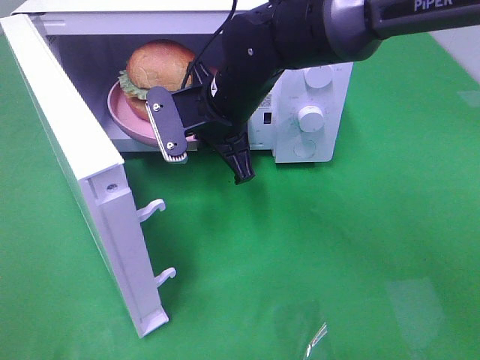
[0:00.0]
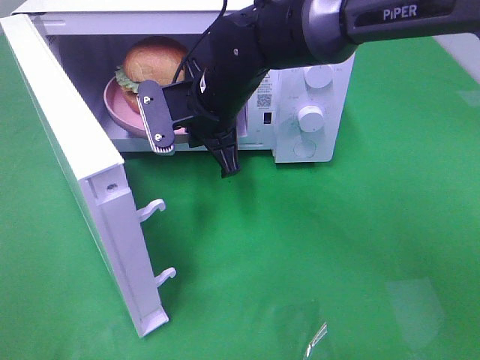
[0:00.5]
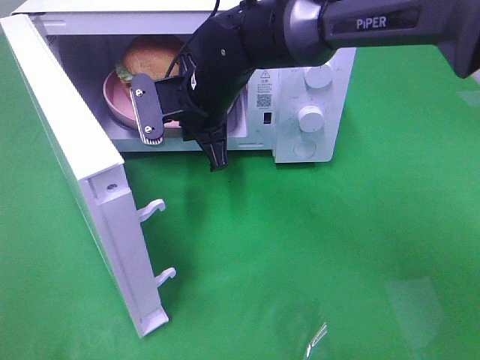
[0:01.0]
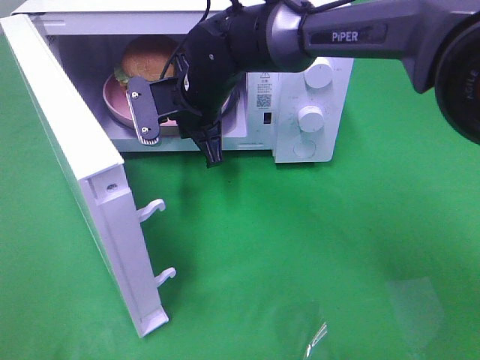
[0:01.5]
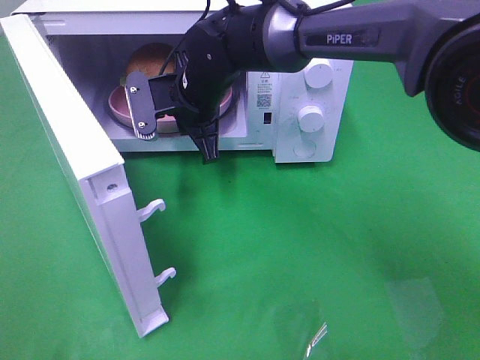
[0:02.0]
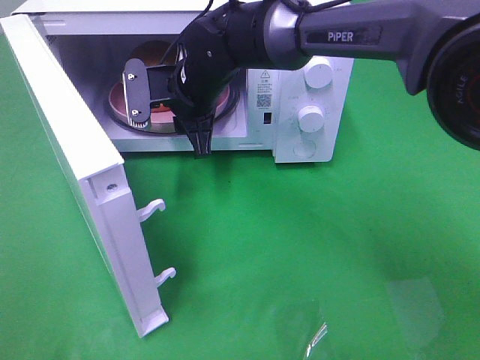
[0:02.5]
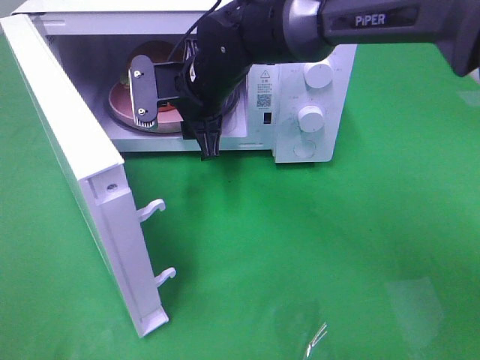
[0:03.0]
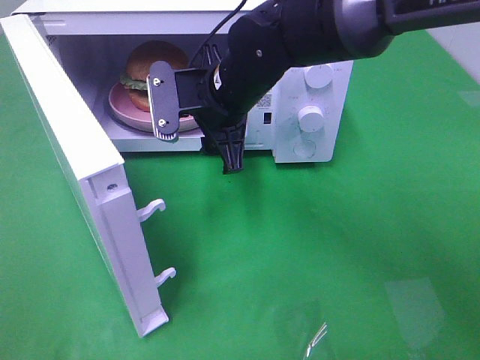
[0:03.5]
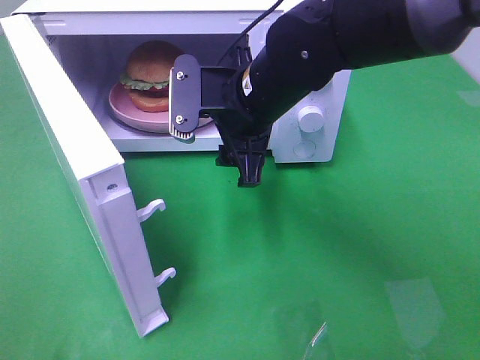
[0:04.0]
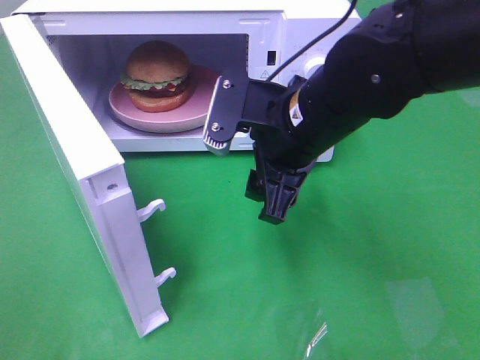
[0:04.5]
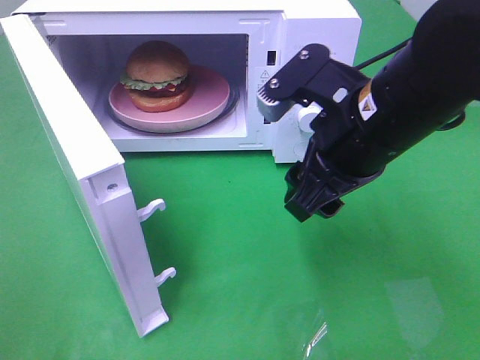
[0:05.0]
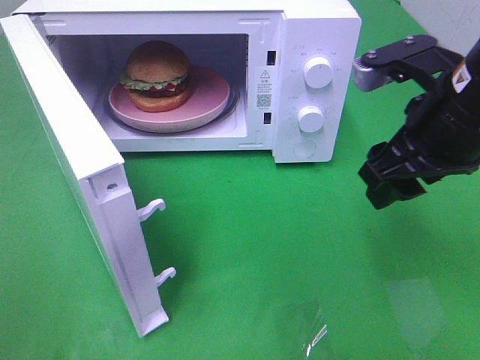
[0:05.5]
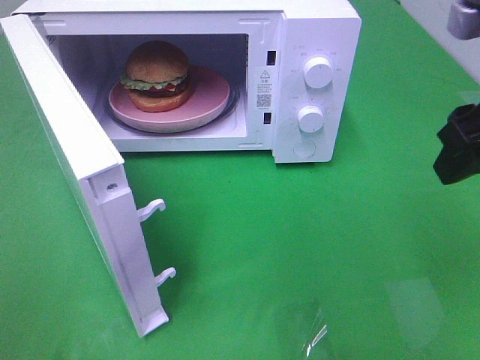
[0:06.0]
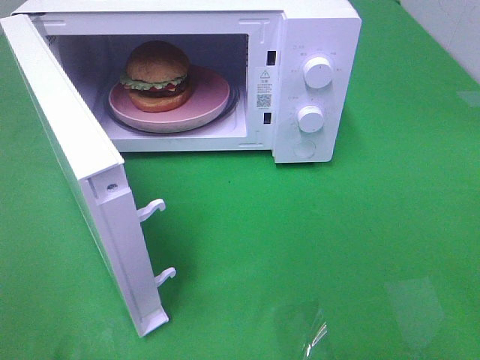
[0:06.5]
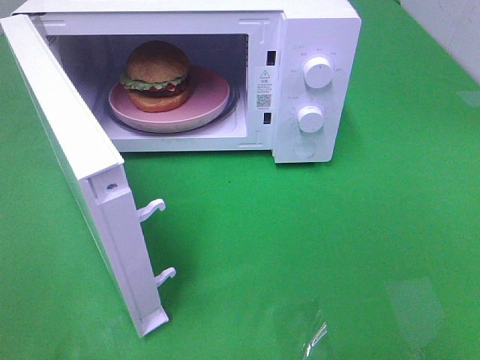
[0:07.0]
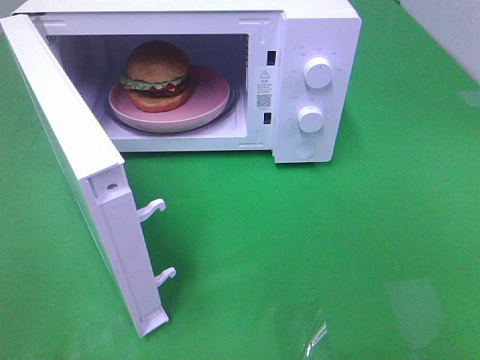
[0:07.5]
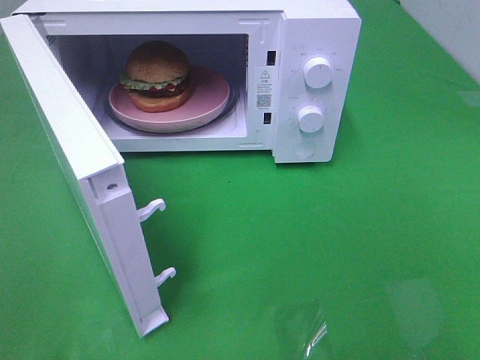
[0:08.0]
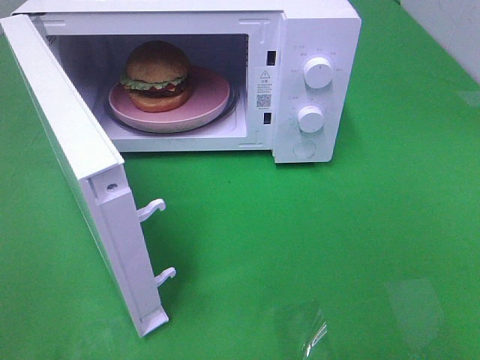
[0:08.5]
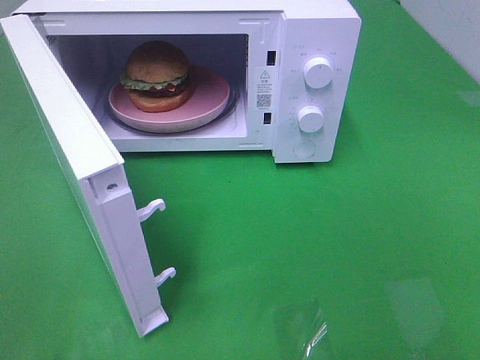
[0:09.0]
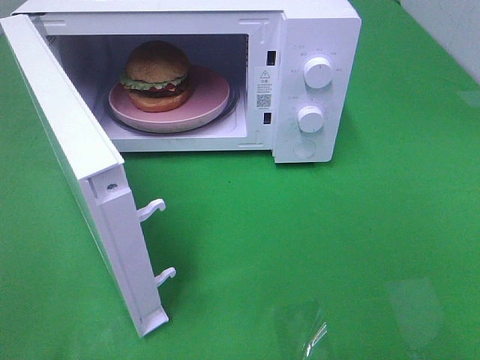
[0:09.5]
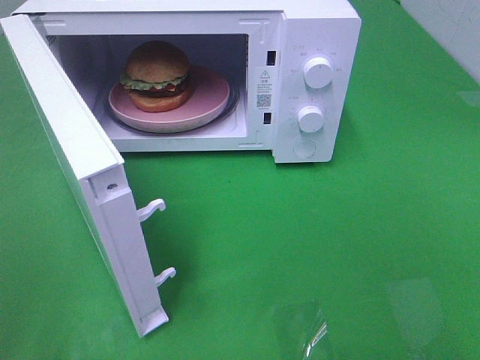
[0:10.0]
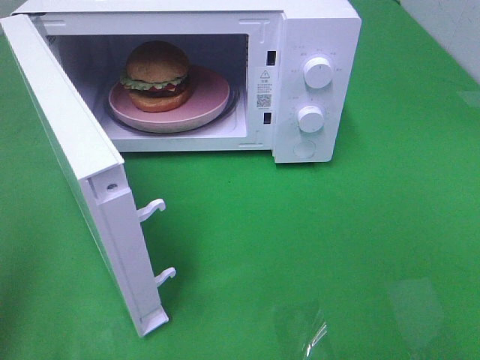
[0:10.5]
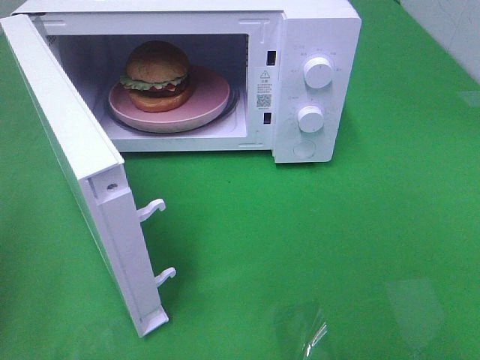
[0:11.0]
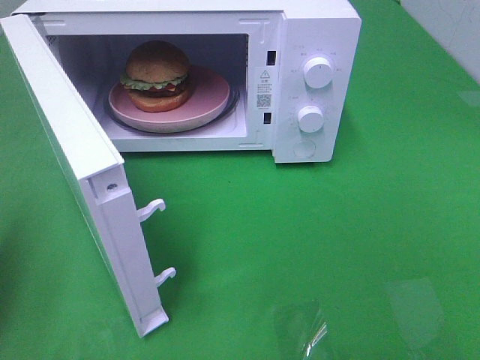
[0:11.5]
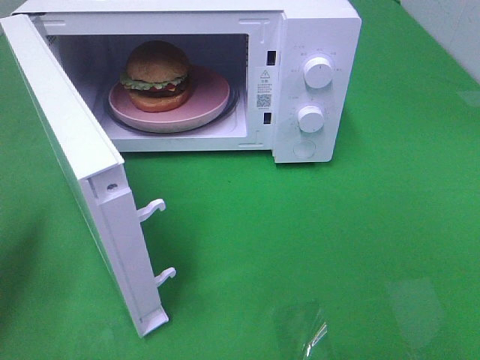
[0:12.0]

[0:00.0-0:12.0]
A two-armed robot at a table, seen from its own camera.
Task of the whole recording: Heat the burger.
Step, 0:00.0 to 0:02.5: Right hand: place the plate in the microwave.
0:00.0 to 0:02.0: The right gripper travels forward by approximately 5 cm.
0:02.0 to 0:04.0: The right gripper moves backward and to the right, some 10 cm, and opens its fingers.
0:04.0 to 0:06.0: The right gripper goes some 25 cm to the right, backward and upward.
0:06.0 to 0:08.0: The right gripper shifts roughly 20 cm backward.
0:10.0 to 0:12.0: The left gripper goes roughly 20 cm forward and downward, and closes.

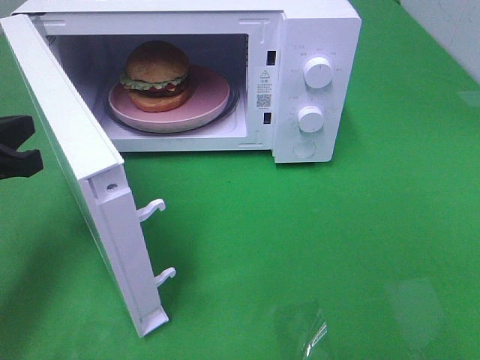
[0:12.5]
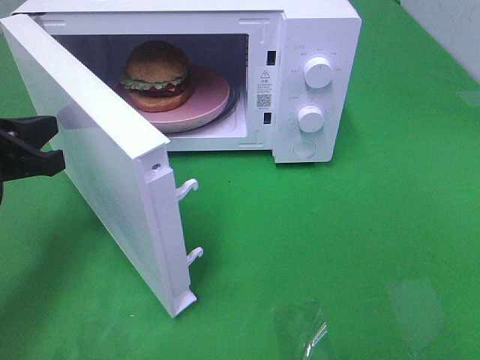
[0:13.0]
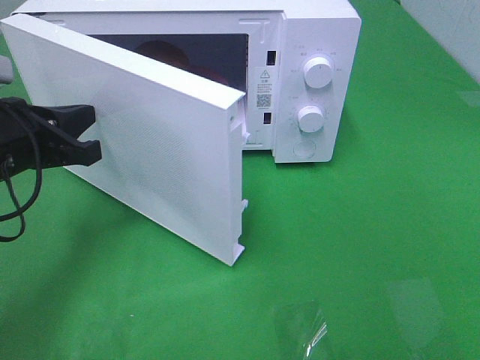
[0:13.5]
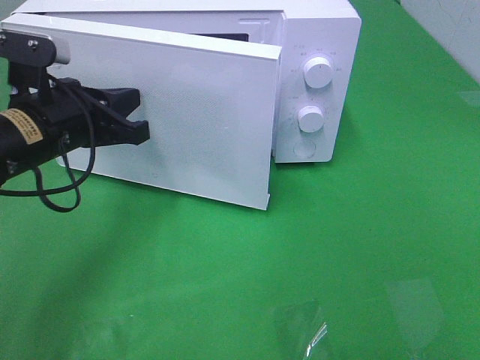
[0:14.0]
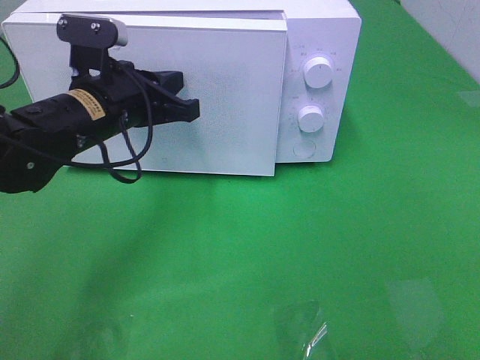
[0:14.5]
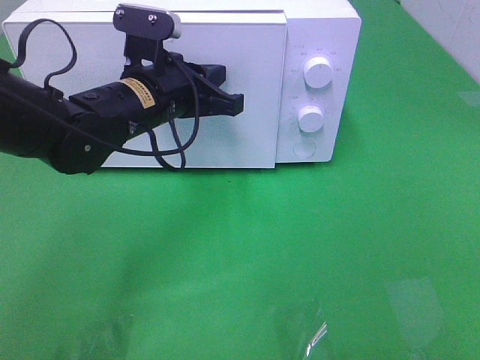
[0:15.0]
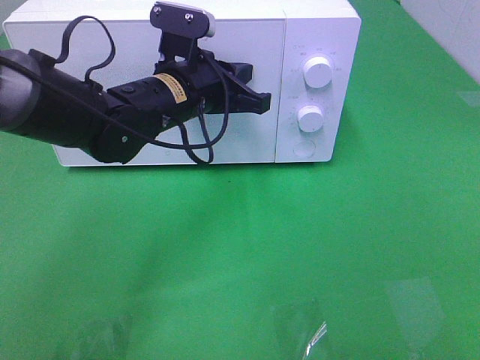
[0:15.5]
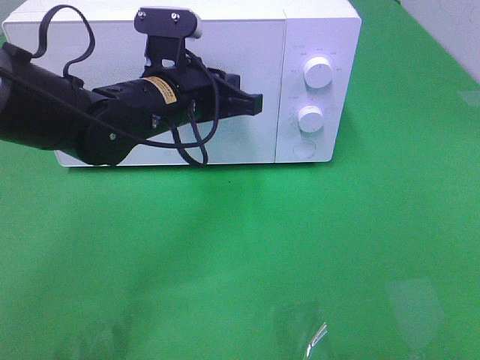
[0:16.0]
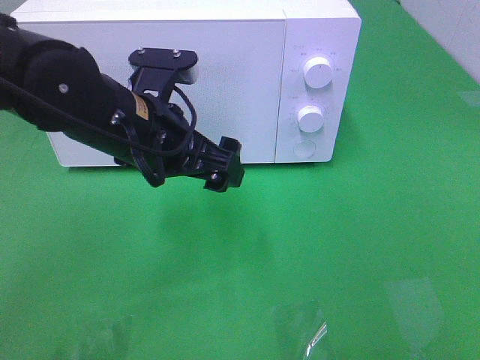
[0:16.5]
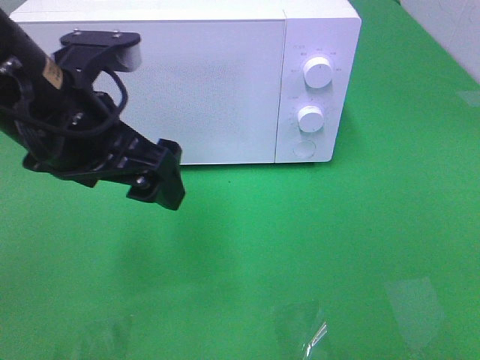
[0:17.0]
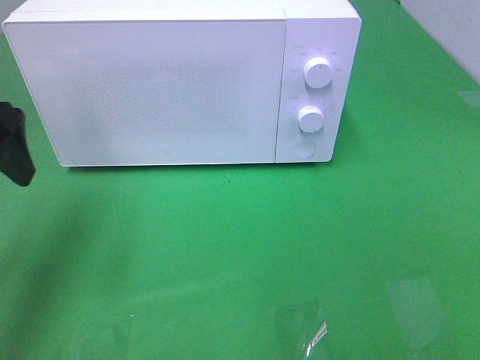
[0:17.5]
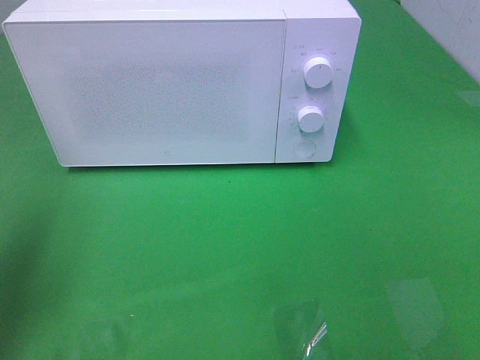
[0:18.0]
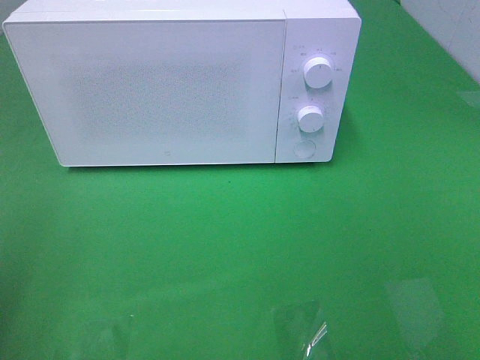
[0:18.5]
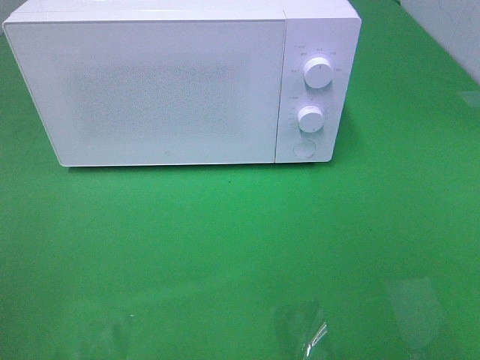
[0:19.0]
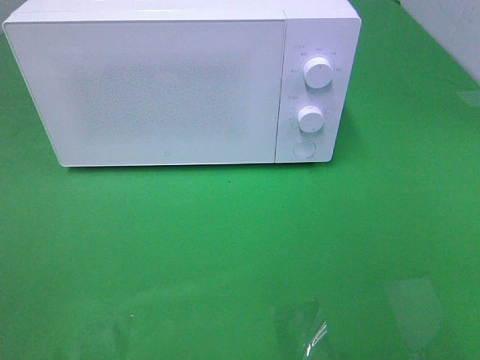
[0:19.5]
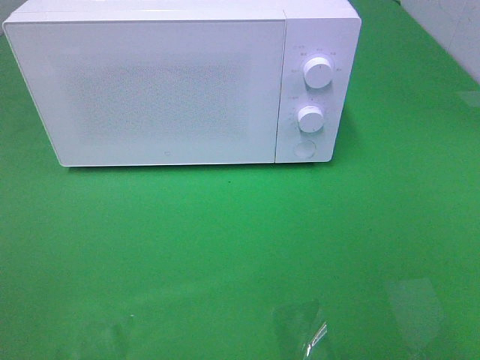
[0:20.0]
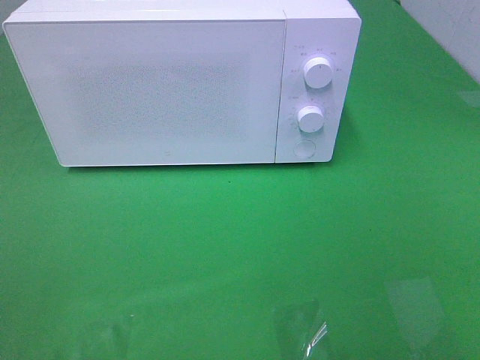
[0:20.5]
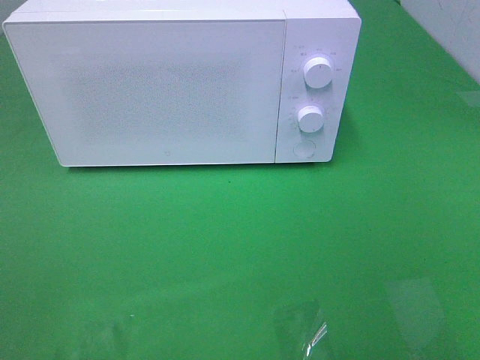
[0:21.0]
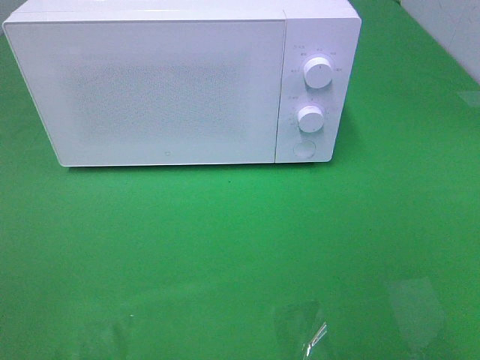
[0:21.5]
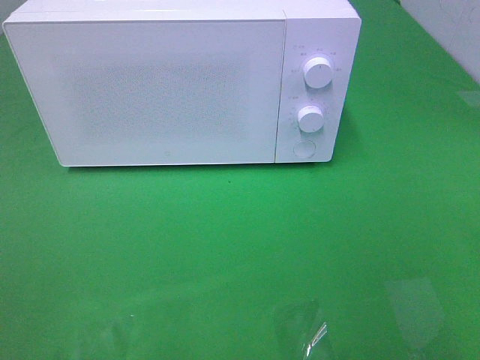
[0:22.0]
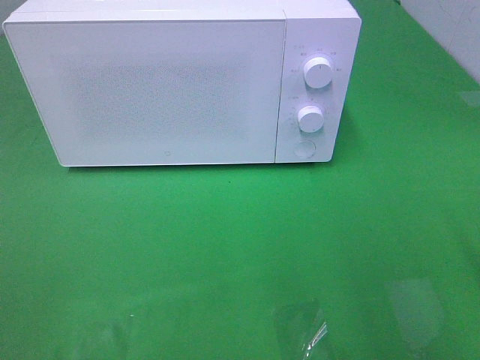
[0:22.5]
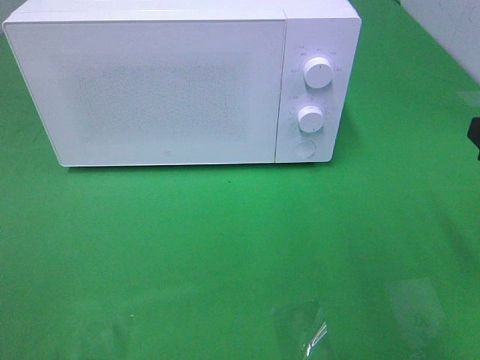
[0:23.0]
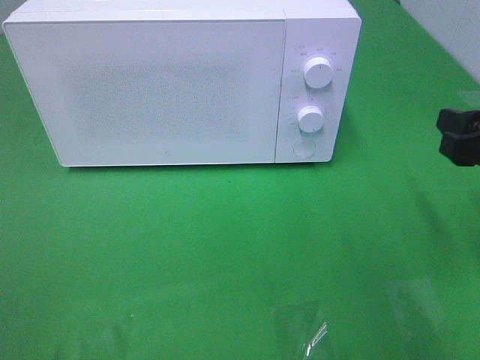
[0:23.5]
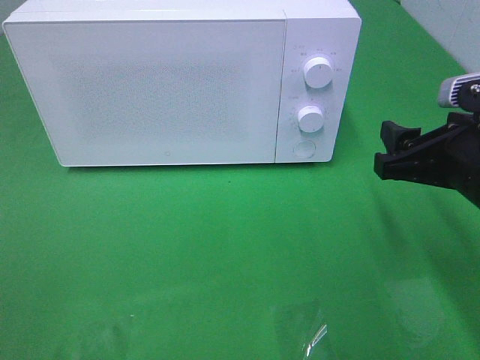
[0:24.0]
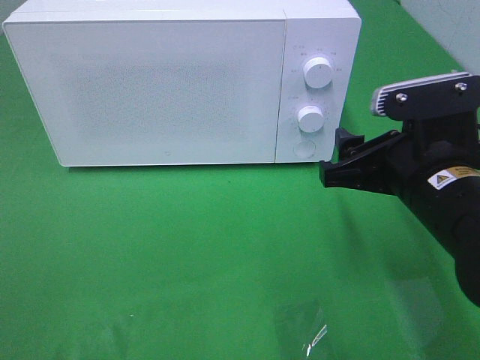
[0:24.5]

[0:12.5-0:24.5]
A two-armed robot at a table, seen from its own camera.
Task of the whole recording: Heat the burger.
Step, 0:12.5 to 0:16.0: Left hand: close the microwave door.
0:12.5 to 0:14.5: The left gripper is displaced to the right and forward by roughly 15 cm.
0:14.5 to 0:16.5: The left gripper ends up roughly 5 cm from where it was, and opens its fingers.
0:16.5 to 0:18.5: The left gripper heads to the left and backward, covering roughly 30 cm.
0:22.5 to 0:24.5: The right gripper is displaced to the left, forward and downward by roughly 15 cm.

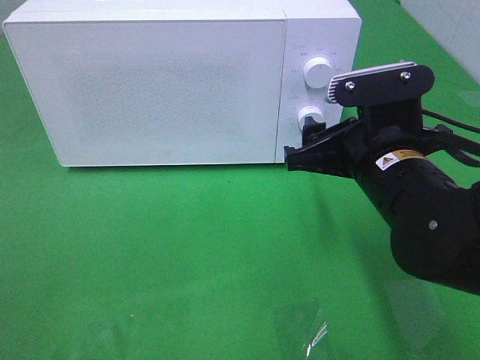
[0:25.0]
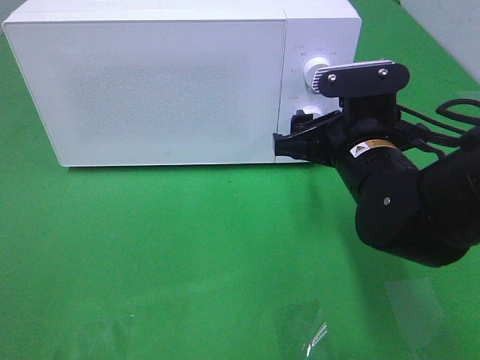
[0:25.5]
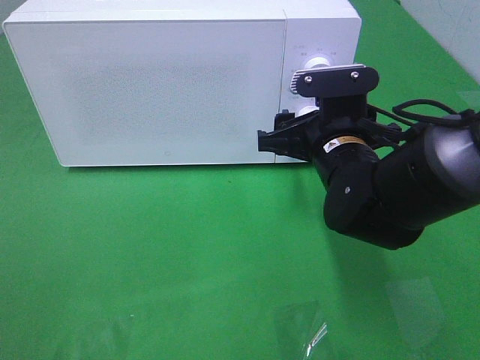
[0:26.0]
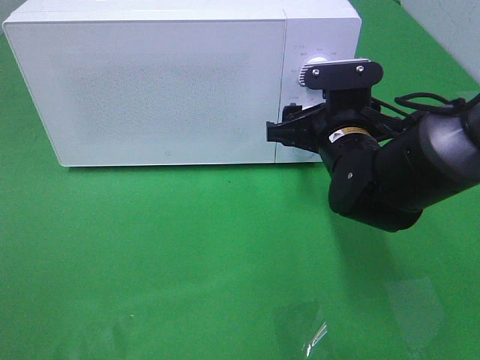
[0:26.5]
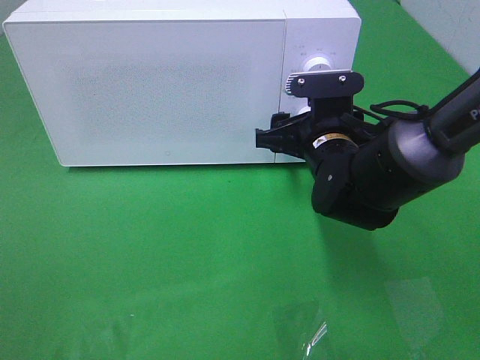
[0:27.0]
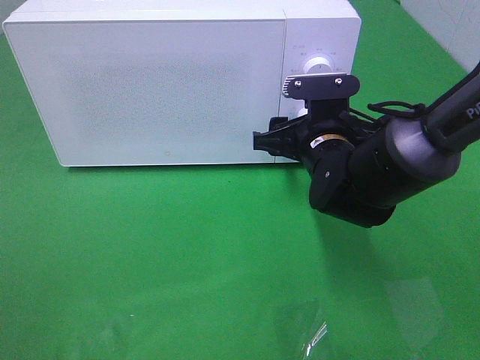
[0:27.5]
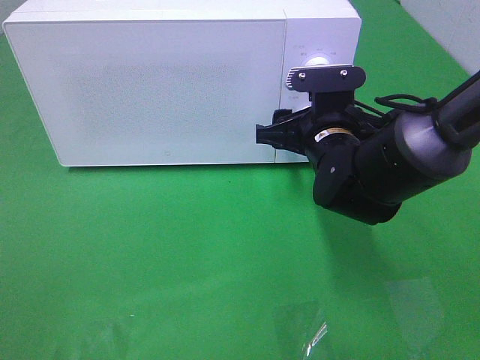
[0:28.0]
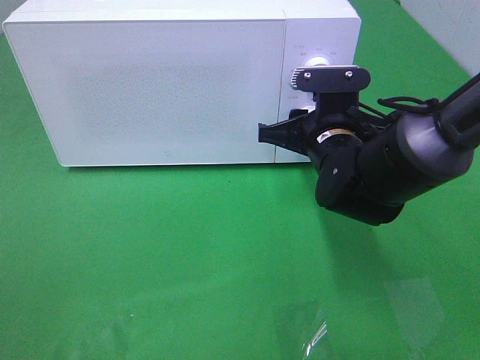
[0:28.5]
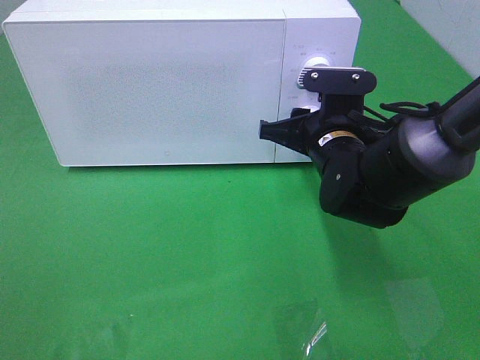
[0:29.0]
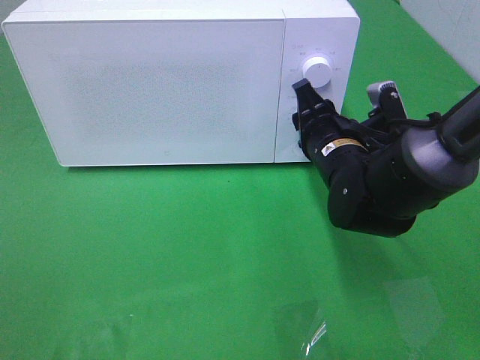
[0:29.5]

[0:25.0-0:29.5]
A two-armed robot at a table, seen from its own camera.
Task of the whole recording: Heat the burger.
0:25.0 to 0:27.0: The right gripper travels forward and downward by roughly 10 cm.
0:27.0 to 0:29.5: The right gripper closes up.
